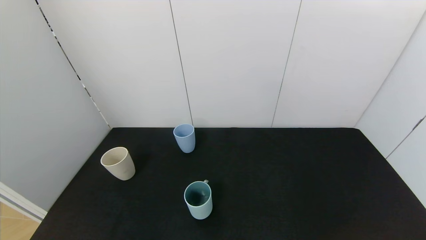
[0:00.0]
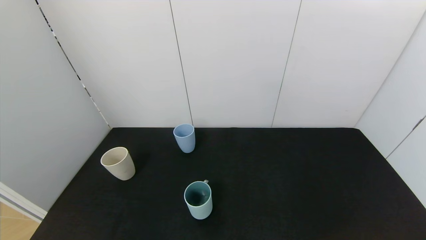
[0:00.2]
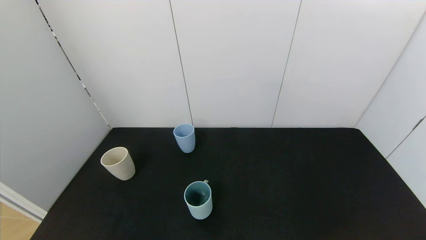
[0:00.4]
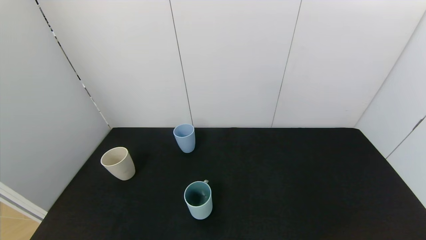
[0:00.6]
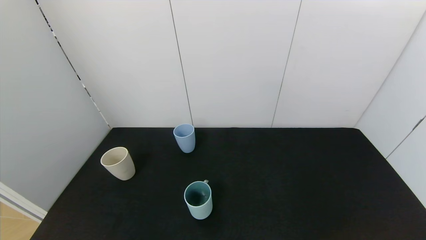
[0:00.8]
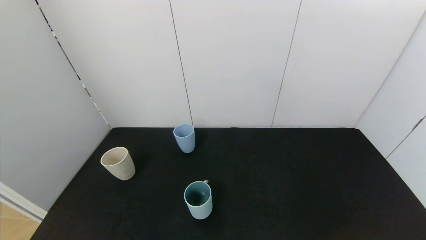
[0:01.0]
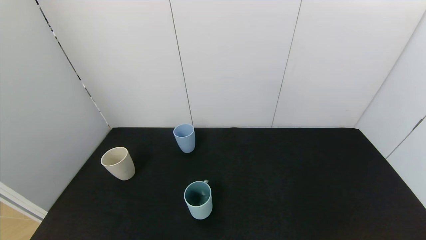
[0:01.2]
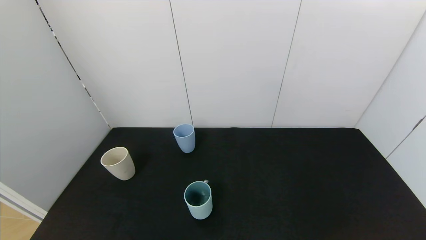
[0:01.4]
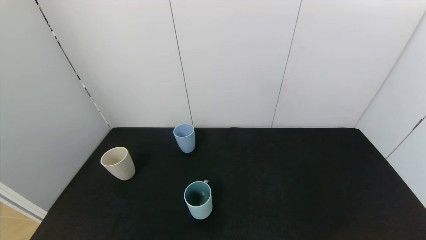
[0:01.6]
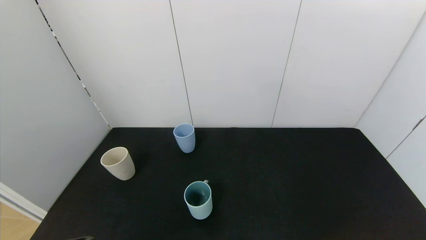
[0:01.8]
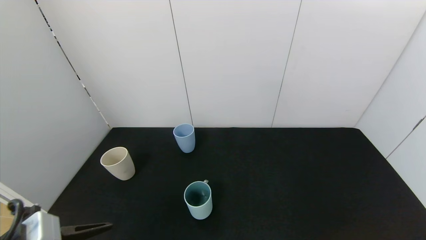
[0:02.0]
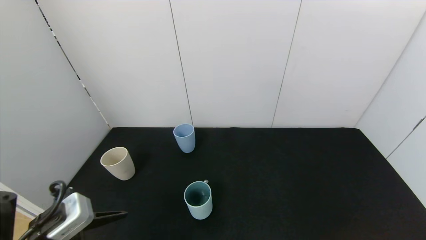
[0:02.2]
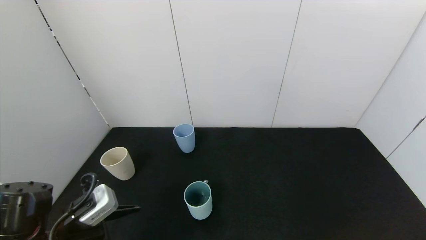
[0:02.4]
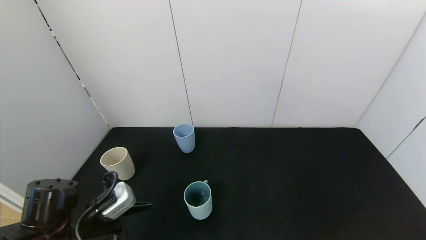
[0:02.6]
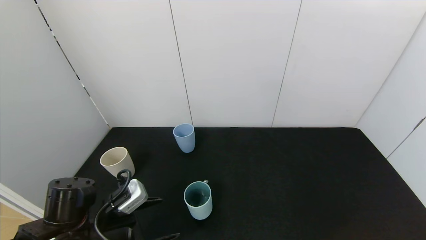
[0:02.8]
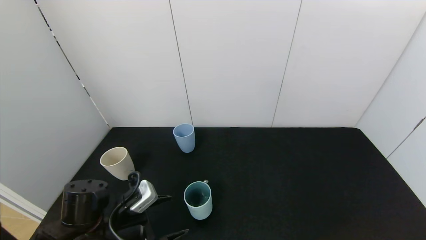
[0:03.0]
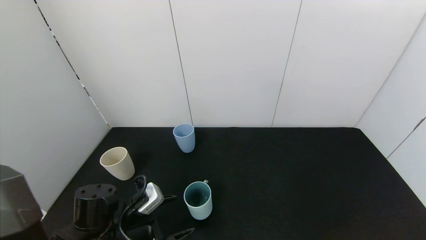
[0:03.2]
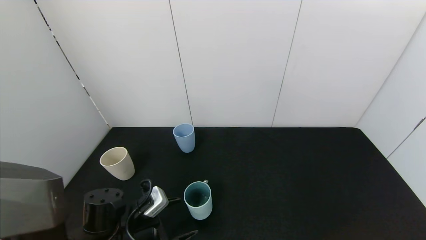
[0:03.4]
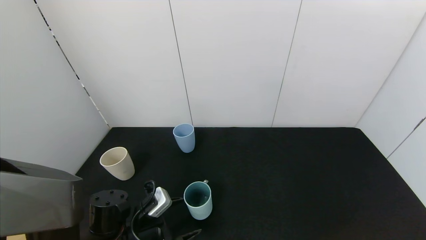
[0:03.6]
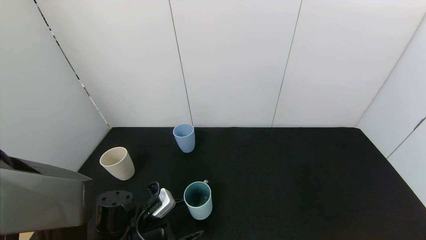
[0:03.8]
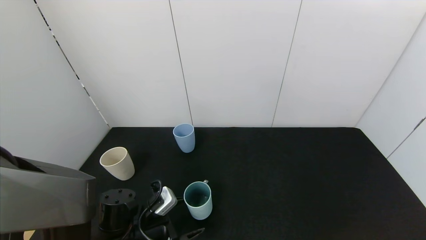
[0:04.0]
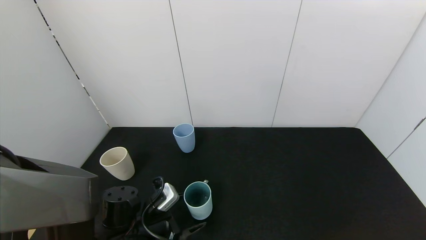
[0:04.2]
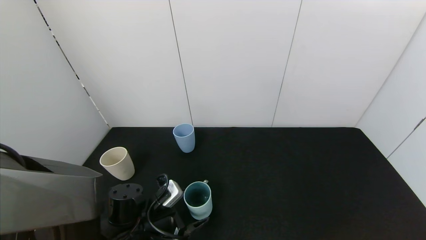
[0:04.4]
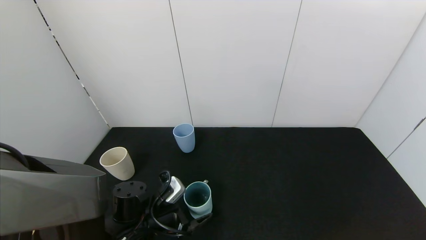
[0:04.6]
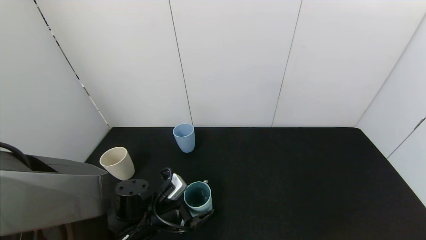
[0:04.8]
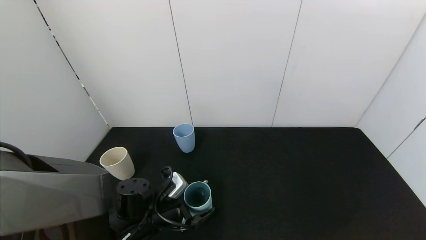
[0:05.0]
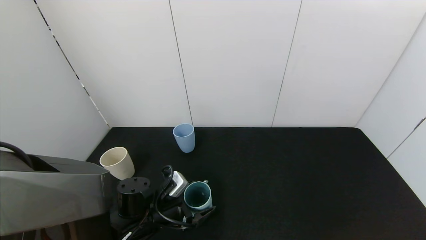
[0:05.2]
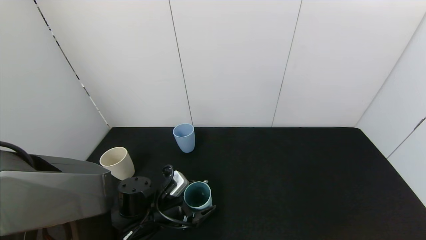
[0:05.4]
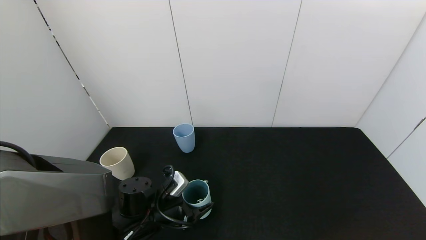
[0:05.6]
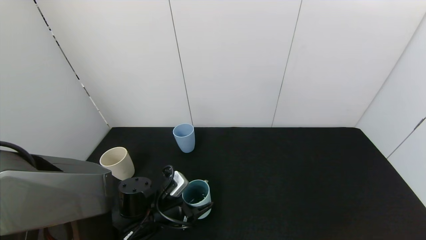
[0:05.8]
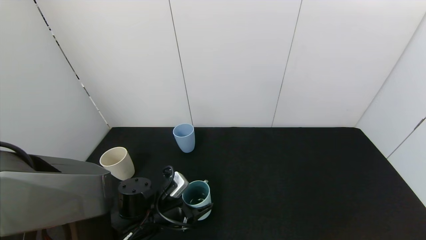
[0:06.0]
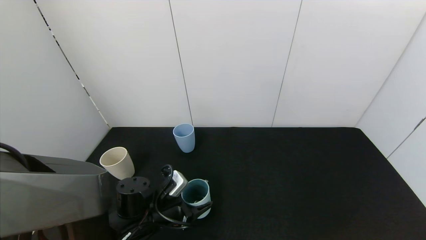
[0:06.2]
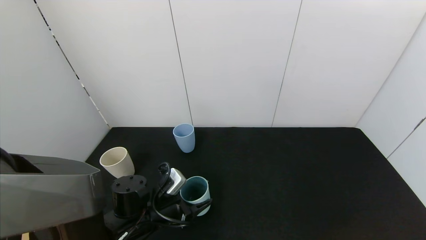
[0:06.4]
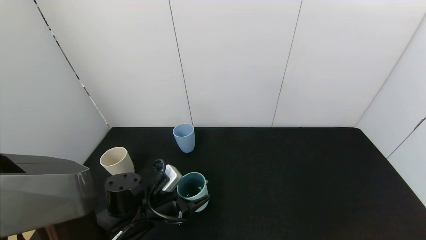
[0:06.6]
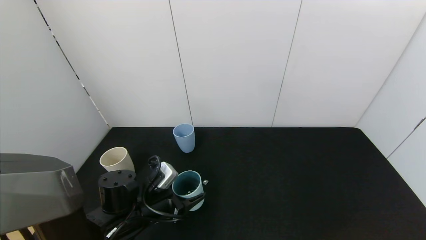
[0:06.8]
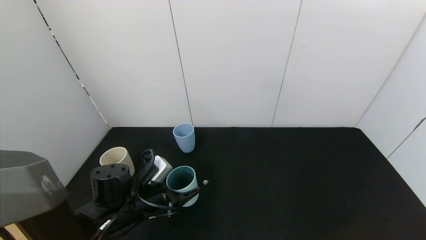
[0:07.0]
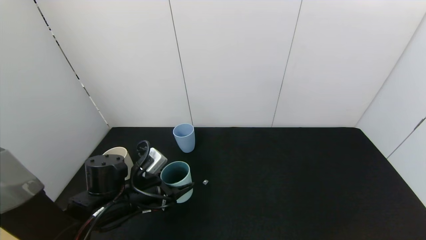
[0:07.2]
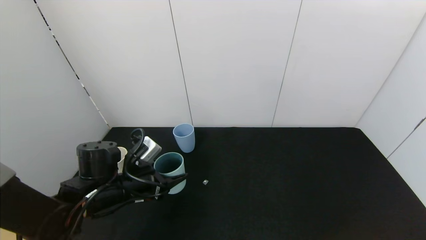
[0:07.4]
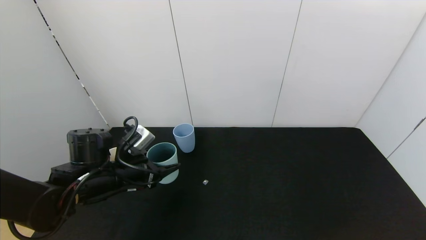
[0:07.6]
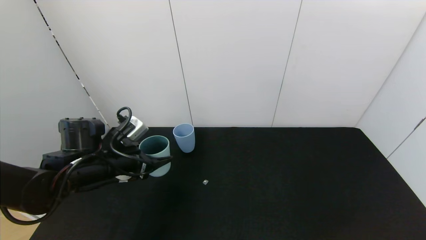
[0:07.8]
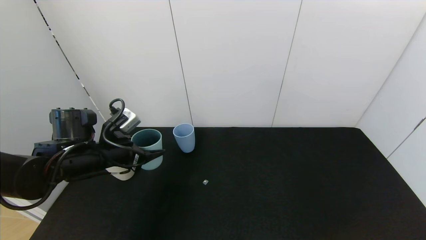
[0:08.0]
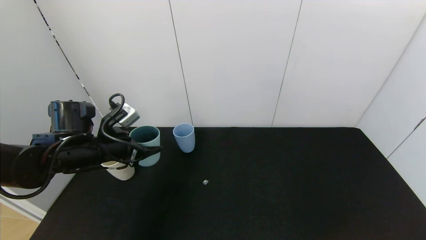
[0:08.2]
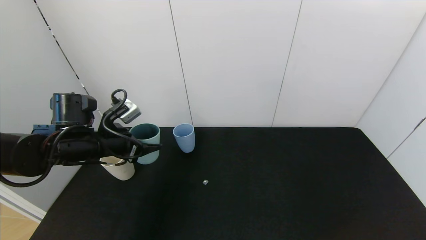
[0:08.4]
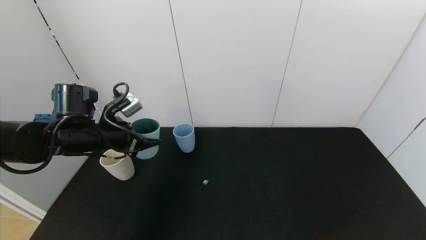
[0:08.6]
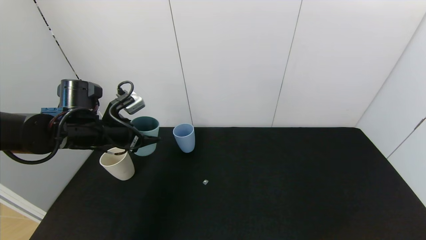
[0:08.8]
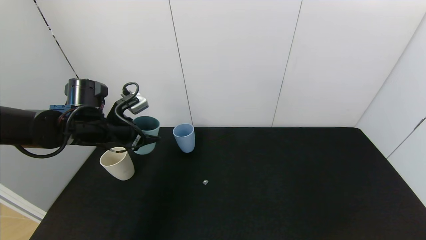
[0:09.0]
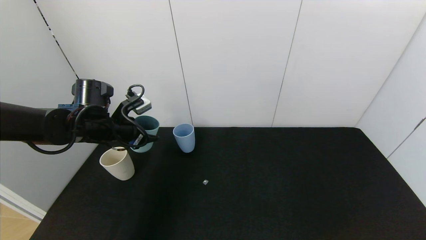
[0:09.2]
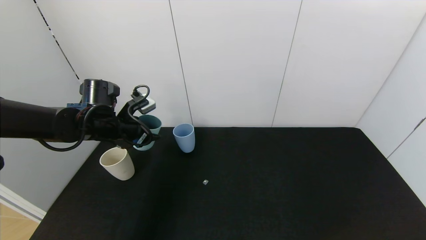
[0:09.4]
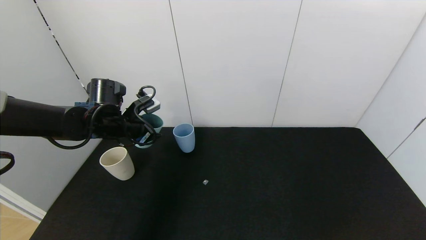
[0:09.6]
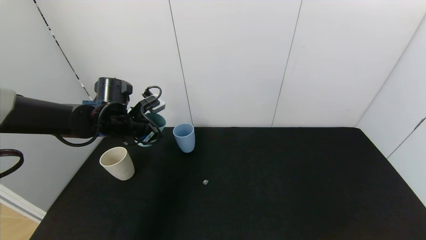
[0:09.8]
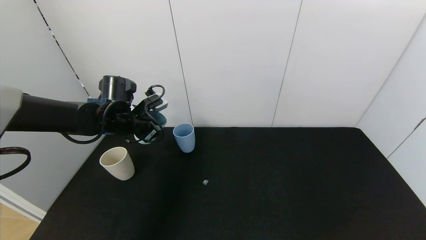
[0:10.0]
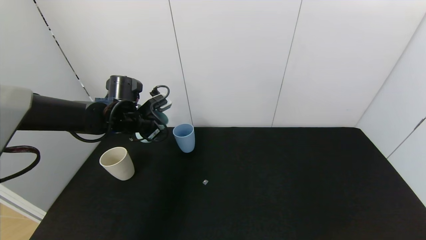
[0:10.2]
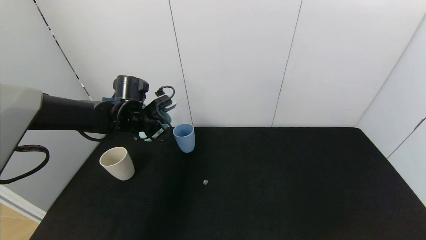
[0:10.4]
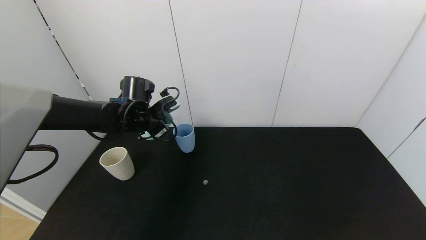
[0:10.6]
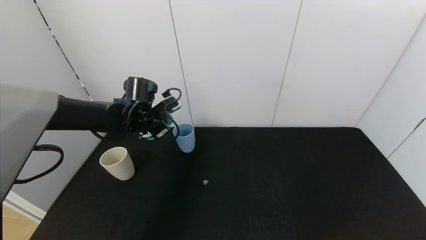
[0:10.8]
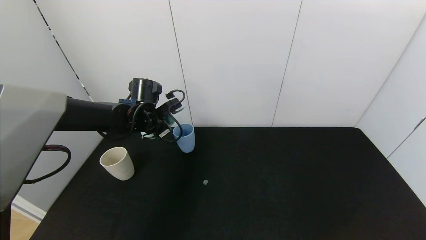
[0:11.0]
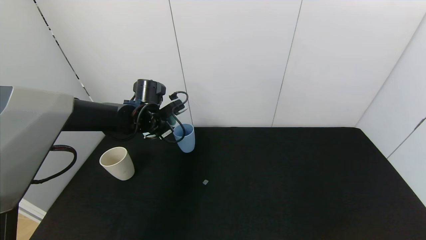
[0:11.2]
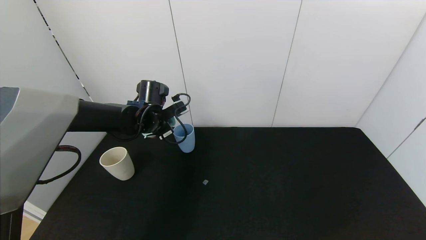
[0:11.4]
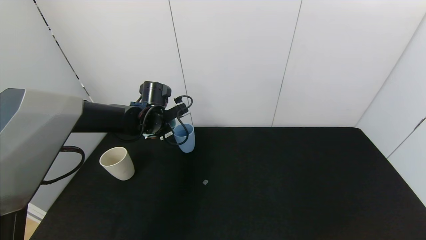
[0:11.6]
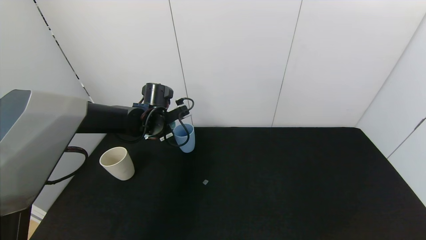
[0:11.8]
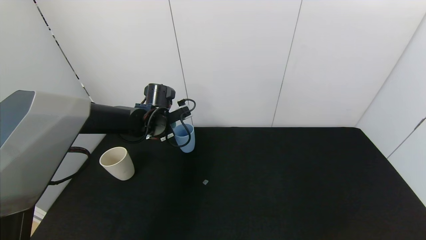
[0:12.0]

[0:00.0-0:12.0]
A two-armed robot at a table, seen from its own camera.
Task of the whole recording: use the gripper to pour the water into the other two cups on black table.
Step, 0:00.0 to 0:05.8: Grasp the green cup with the left gripper.
0:01.6 to 0:03.0: The left gripper is displaced forward and downward by roughly 20 cm.
0:03.0 to 0:04.4: The left gripper heads downward, covering approximately 5 cm.
0:04.4 to 0:06.0: The left gripper closes up.
0:06.0 to 0:07.6: The left gripper moves upward and to the left, about 10 cm.
0:07.6 to 0:09.0: The left gripper is displaced upward and forward by approximately 10 cm.
0:09.0 to 0:10.4: The left gripper moves forward, roughly 5 cm.
0:10.4 to 0:12.0: The left gripper ends up approximately 5 cm from where it was.

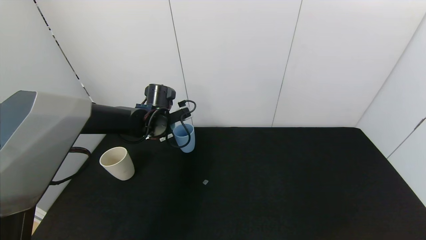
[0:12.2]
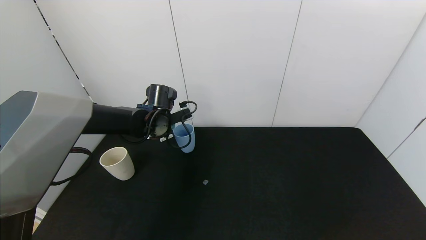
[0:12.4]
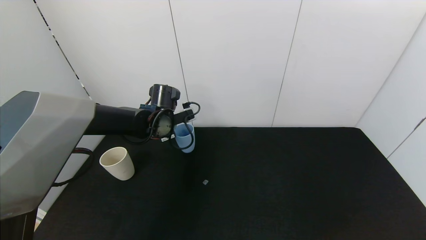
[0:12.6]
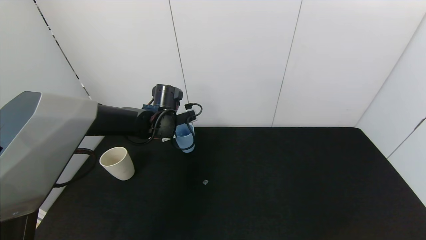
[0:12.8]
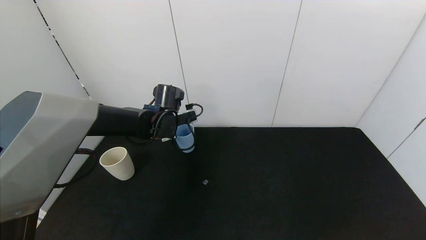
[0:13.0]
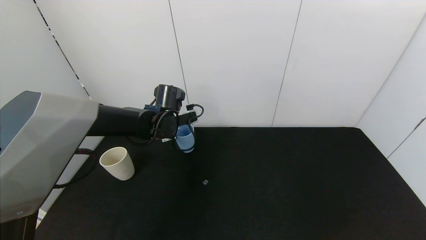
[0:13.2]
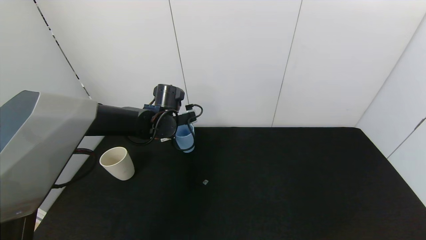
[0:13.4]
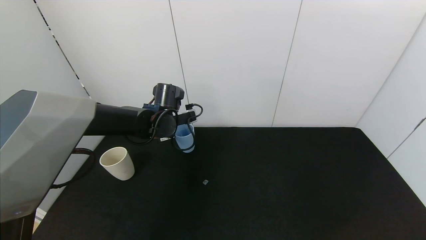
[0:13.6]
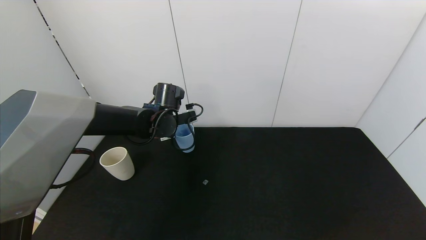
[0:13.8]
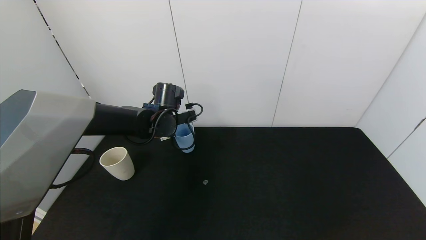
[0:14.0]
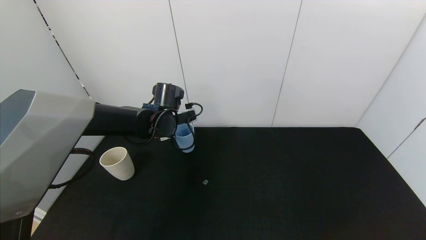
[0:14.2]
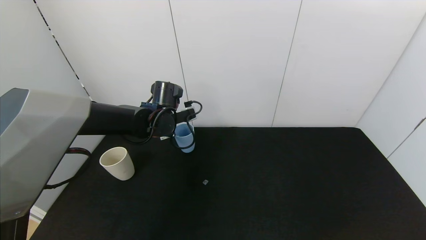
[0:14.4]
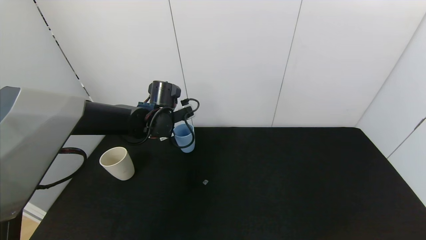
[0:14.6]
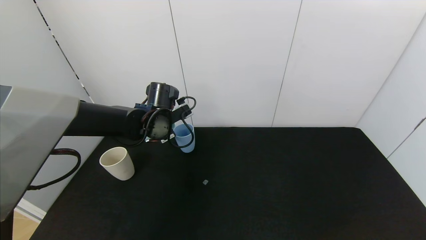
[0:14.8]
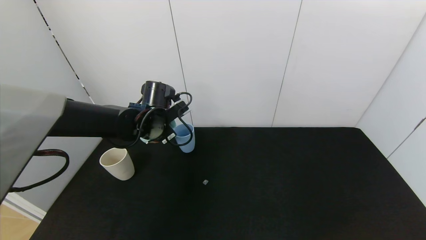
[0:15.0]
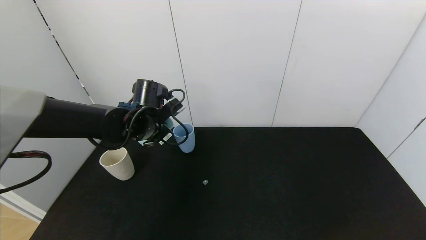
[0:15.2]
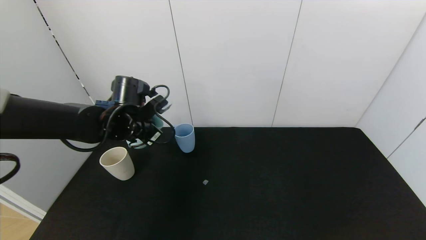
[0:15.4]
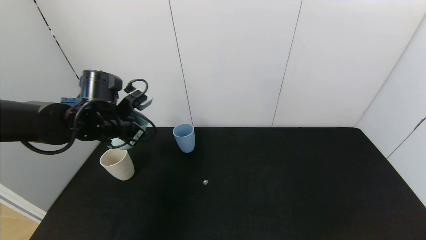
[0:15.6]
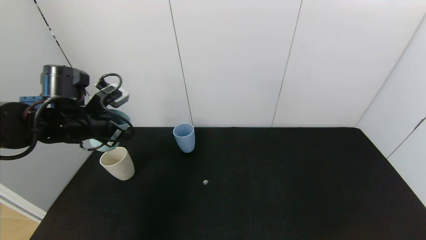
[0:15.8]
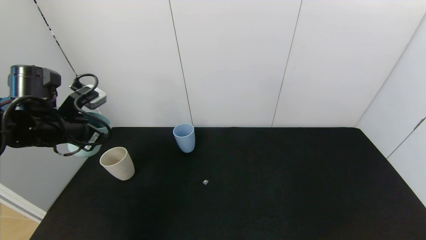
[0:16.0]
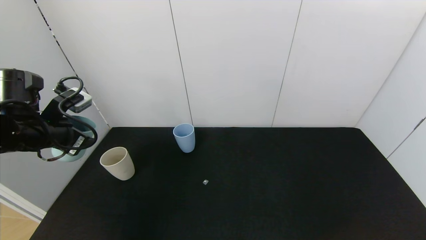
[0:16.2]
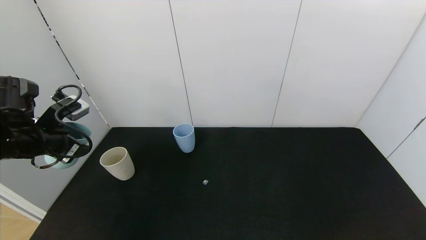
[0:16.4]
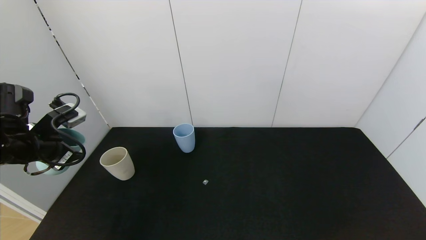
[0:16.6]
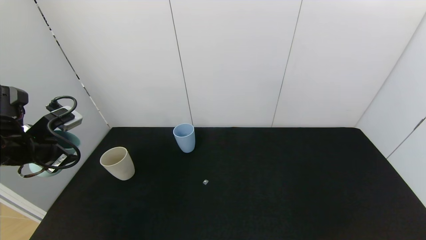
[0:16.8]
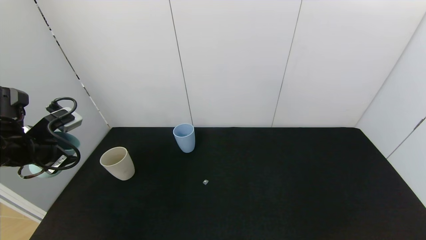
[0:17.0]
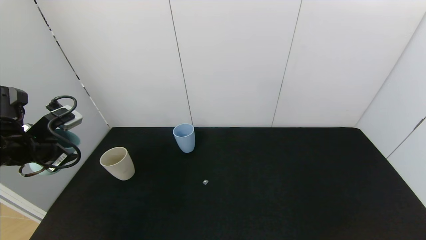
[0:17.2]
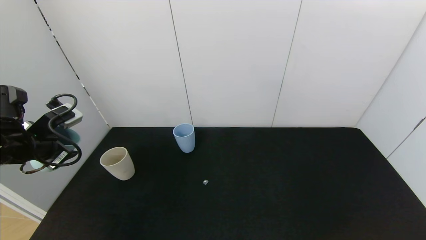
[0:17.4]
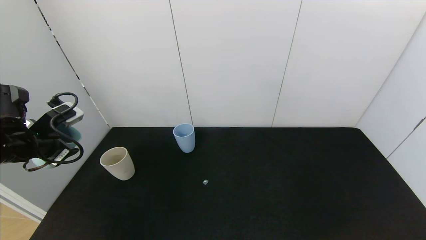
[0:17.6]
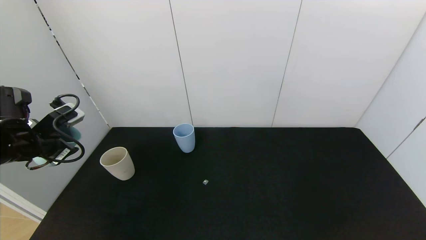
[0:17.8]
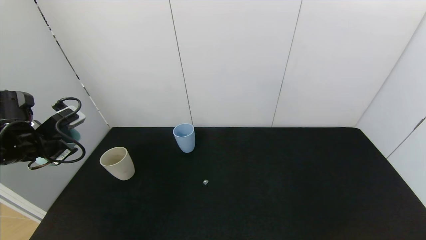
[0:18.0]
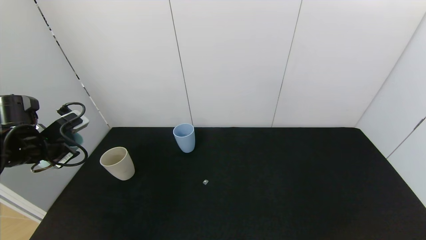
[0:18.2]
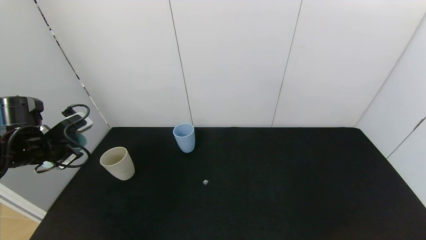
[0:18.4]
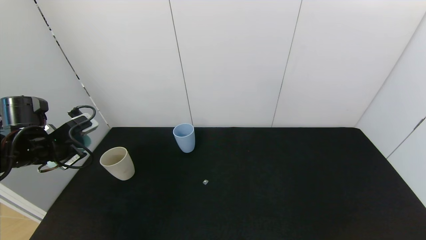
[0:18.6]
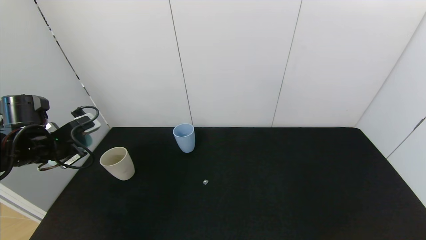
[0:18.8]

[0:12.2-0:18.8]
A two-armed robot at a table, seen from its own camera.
Task of the whole recording: use the gripper to pour the water into the other two cups on black table.
Step, 0:12.2 to 0:15.2: Pour water from green cup to blue cup with the left gripper.
0:12.2 to 0:13.8: The grippers move only a little.
0:13.8 to 0:15.4: The left gripper heads backward and to the left, covering roughly 10 cm.
0:15.4 to 0:17.2: The left gripper heads to the left and backward, covering about 15 cm.
0:17.2 to 0:18.8: The grippers stay close to where they were, moving slightly.
